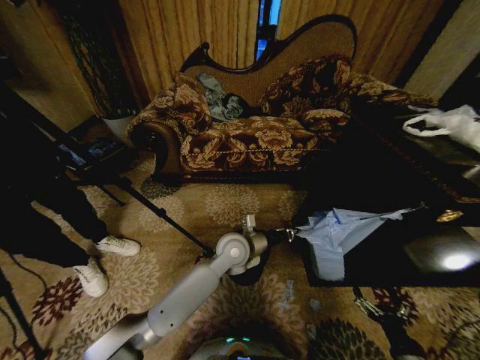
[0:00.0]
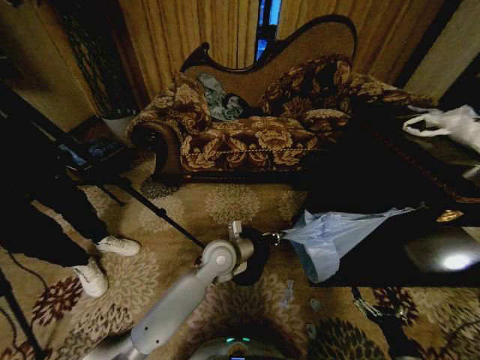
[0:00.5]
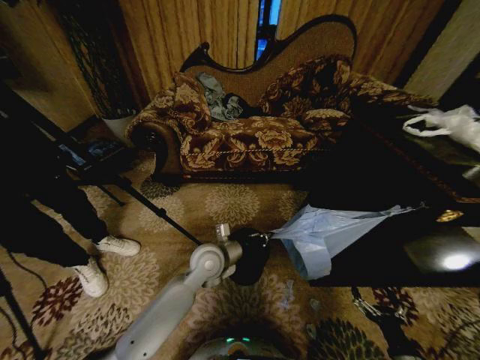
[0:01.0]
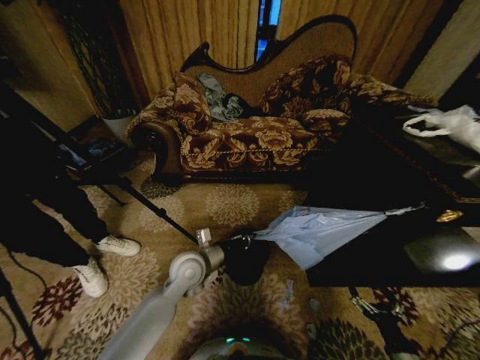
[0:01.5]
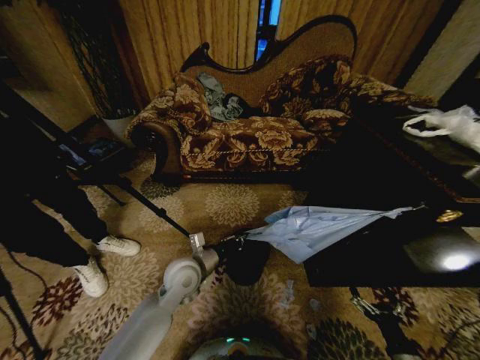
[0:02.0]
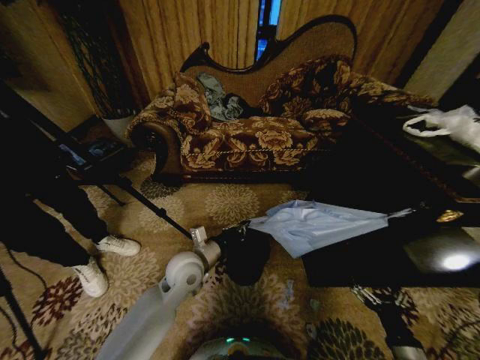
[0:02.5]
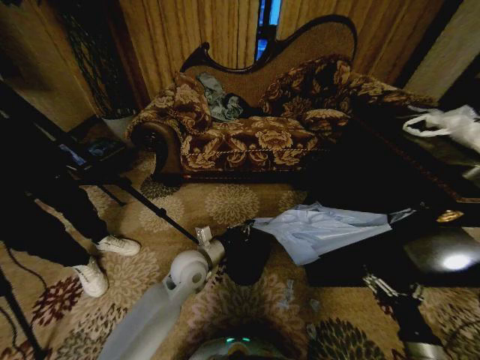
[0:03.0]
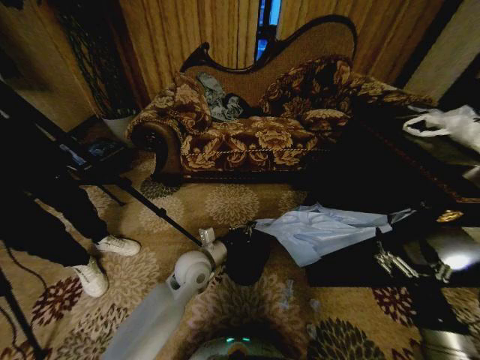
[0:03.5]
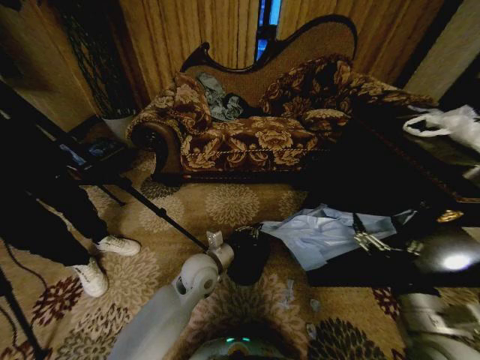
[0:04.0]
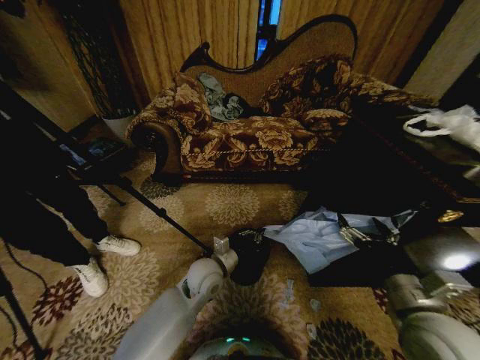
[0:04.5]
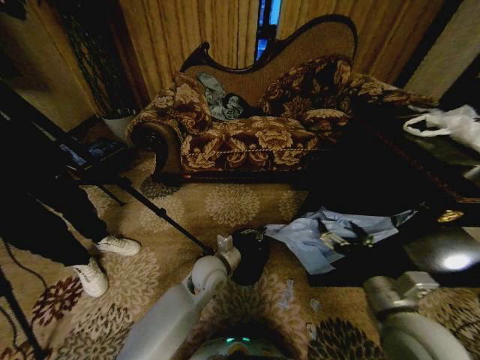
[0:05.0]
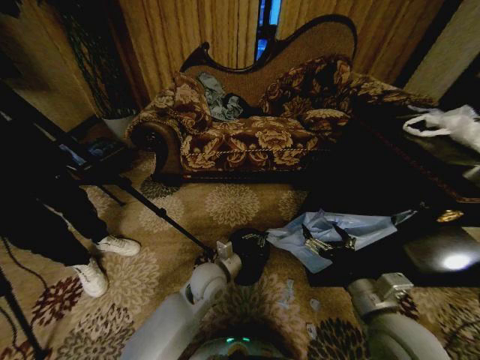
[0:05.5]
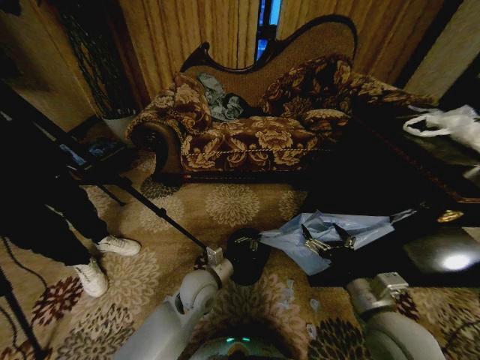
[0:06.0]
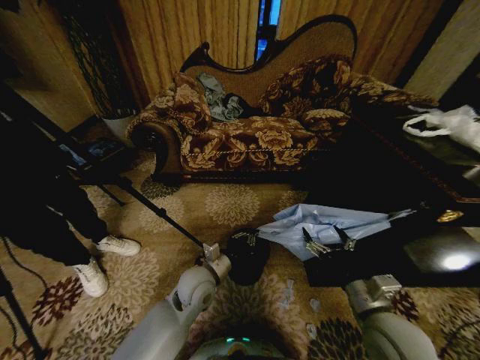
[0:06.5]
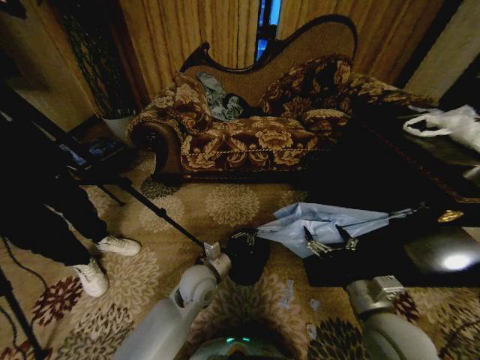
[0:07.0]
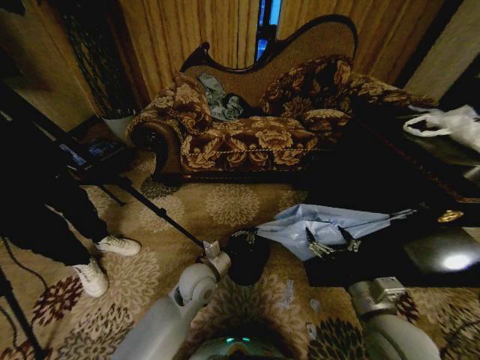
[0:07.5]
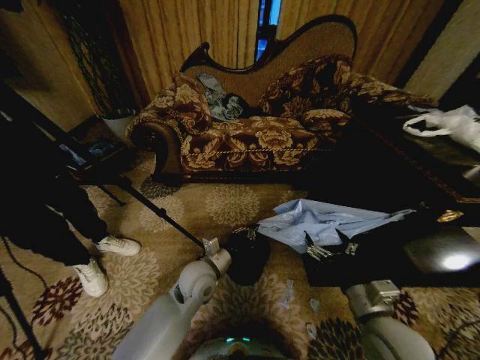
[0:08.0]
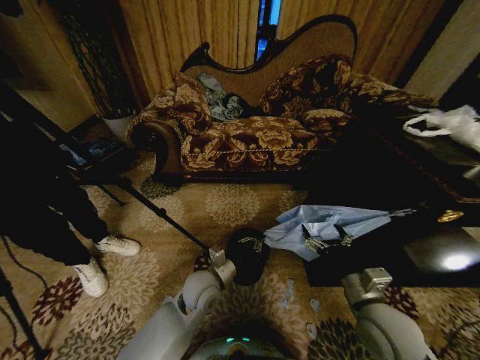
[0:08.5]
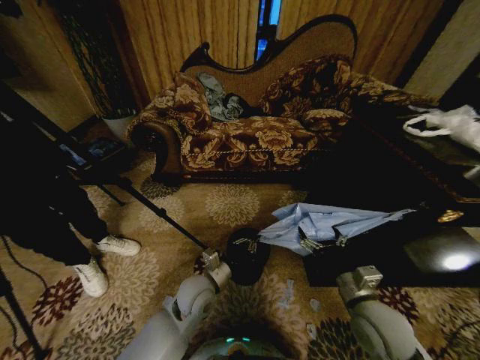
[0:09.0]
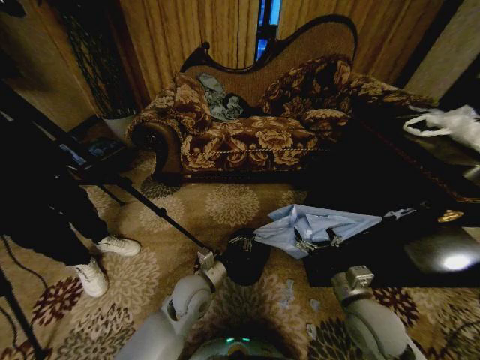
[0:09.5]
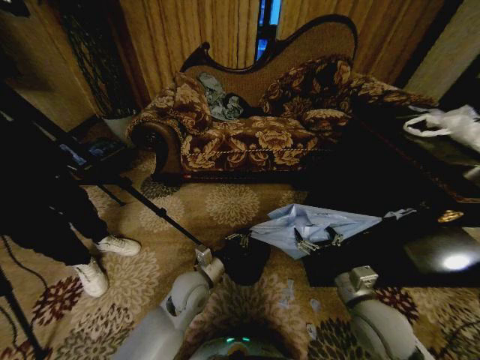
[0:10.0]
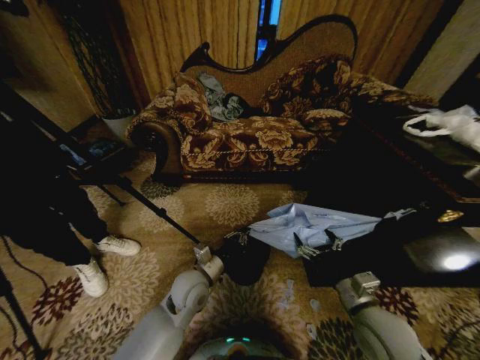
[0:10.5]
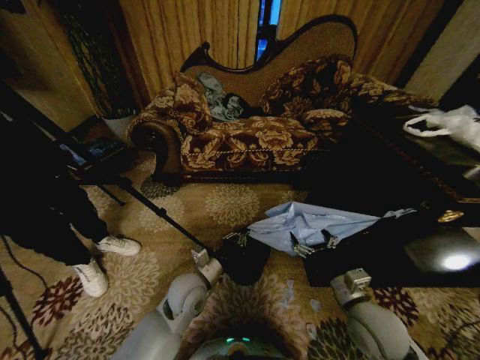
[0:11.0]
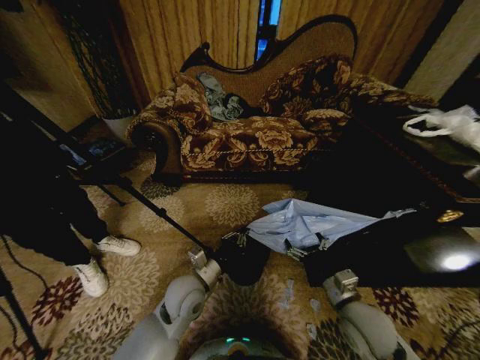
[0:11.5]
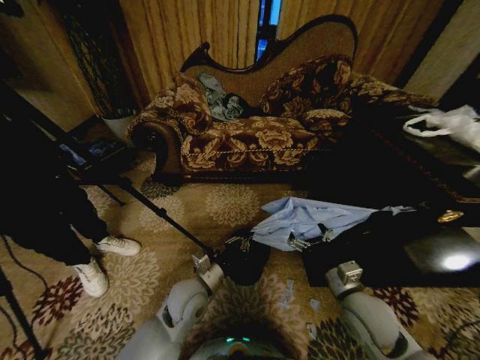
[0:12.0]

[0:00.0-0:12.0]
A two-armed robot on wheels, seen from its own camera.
Task of the whole recording: Place a garbage bag over the trash bin.
0:00.0 to 0:02.0: The left gripper is displaced to the left and backward by approximately 15 cm.
0:02.0 to 0:04.0: The right gripper goes roughly 20 cm upward and to the left.
0:04.0 to 0:06.0: The right gripper changes place by some 5 cm.
0:06.0 to 0:10.0: The grippers make only small movements.
0:10.0 to 0:12.0: The grippers move only a little.

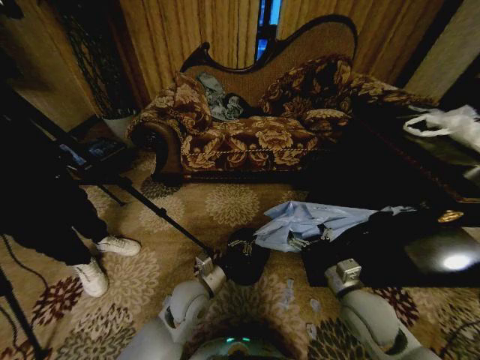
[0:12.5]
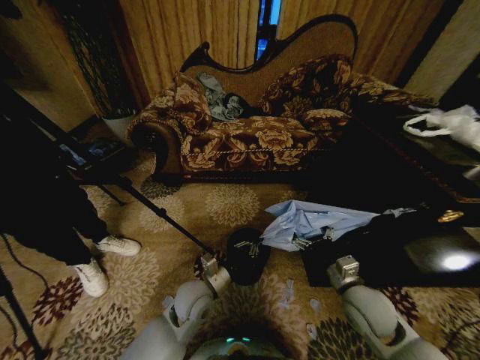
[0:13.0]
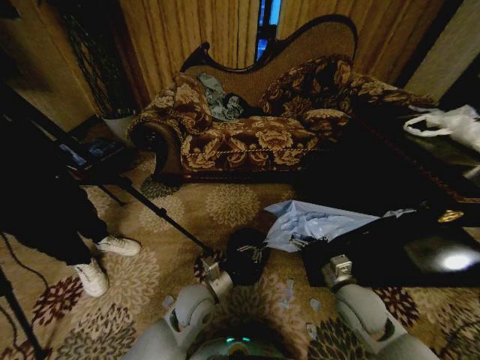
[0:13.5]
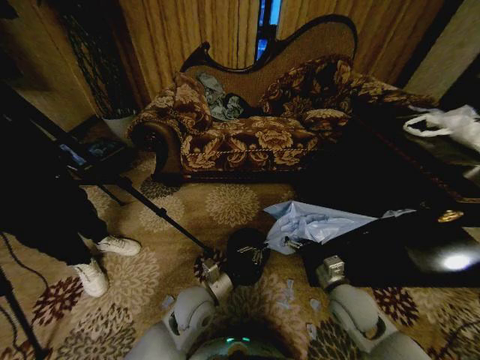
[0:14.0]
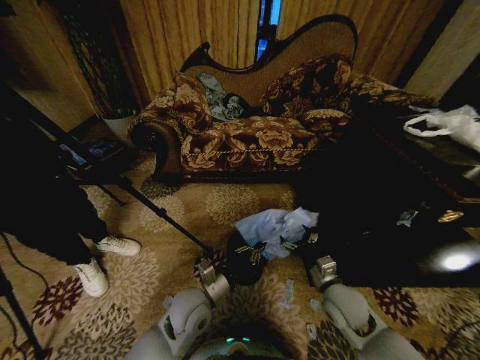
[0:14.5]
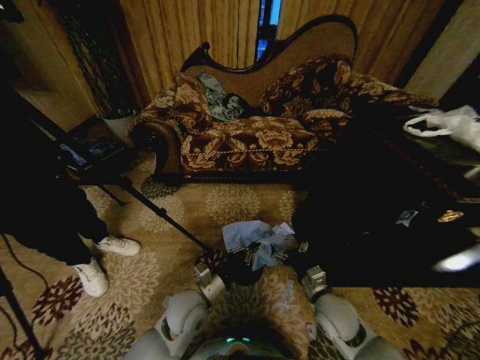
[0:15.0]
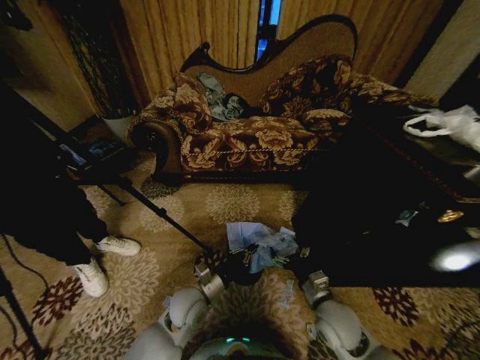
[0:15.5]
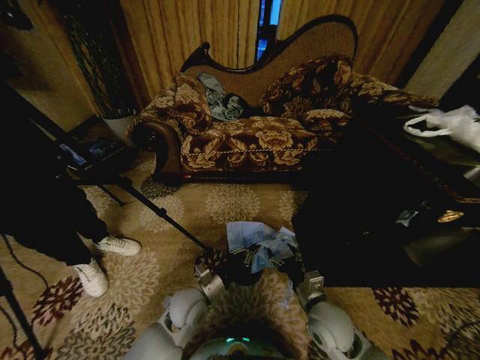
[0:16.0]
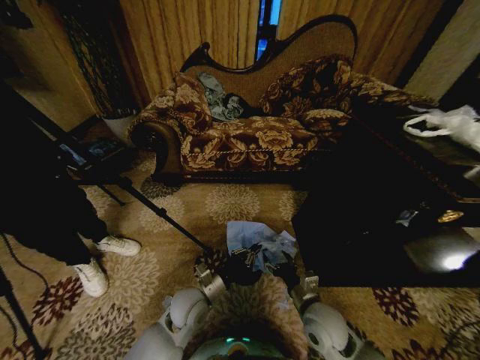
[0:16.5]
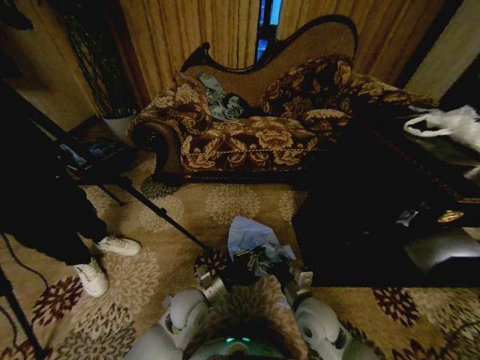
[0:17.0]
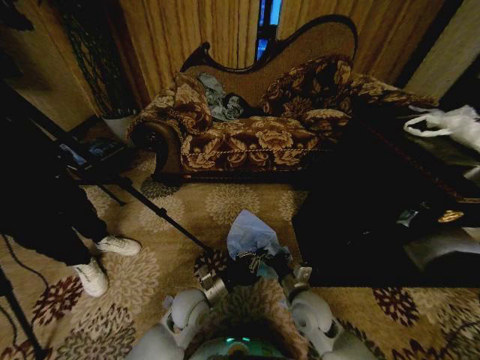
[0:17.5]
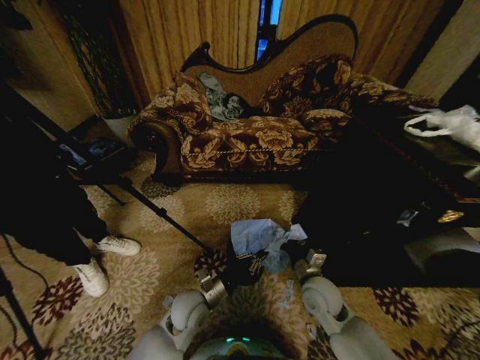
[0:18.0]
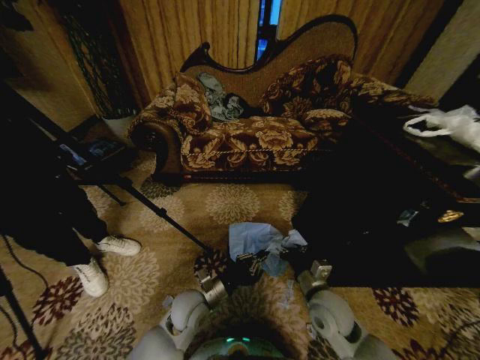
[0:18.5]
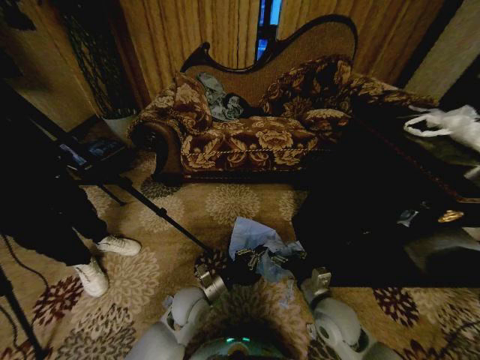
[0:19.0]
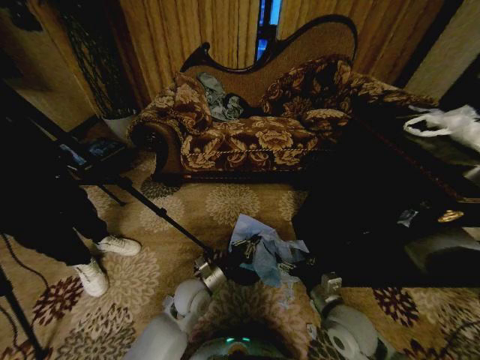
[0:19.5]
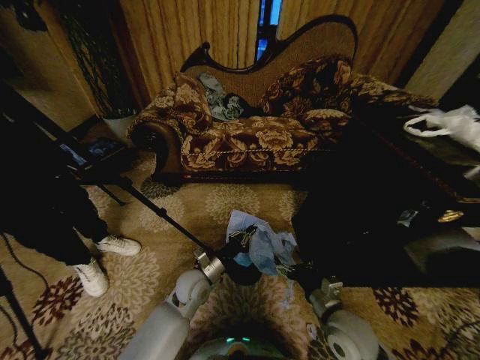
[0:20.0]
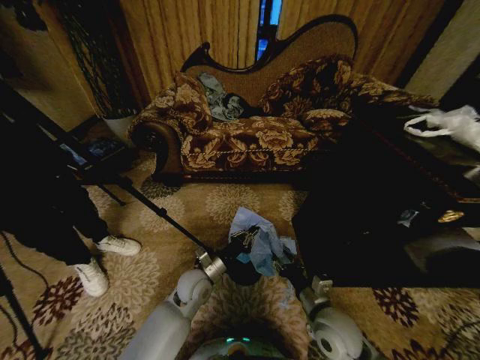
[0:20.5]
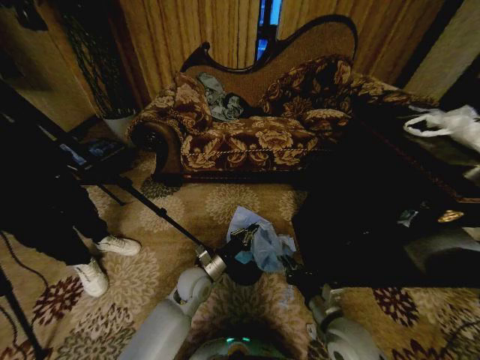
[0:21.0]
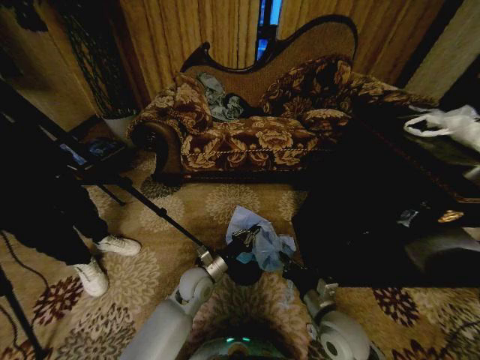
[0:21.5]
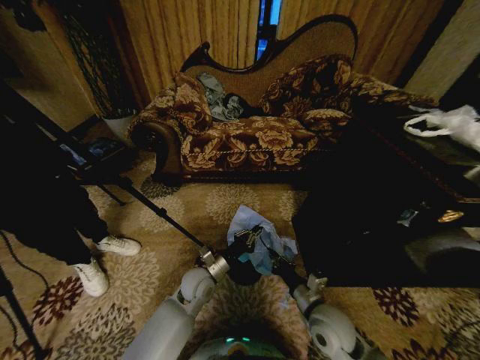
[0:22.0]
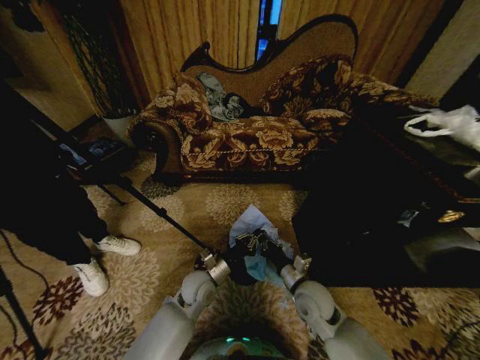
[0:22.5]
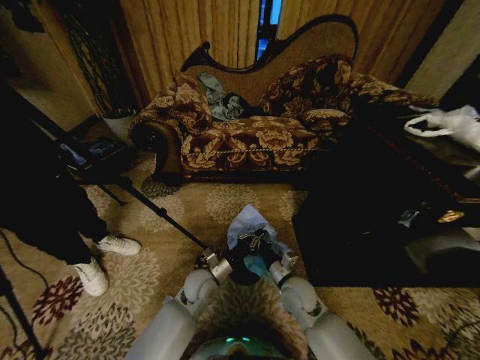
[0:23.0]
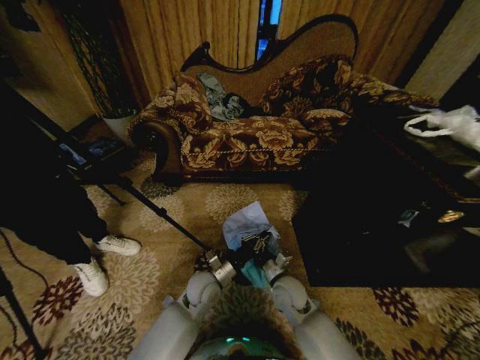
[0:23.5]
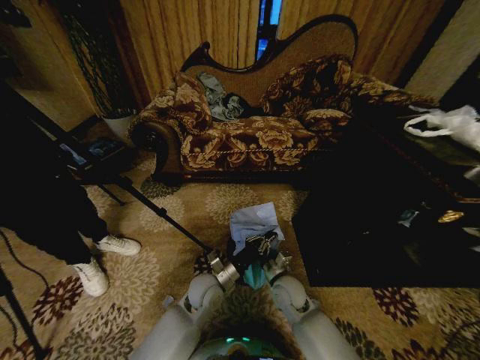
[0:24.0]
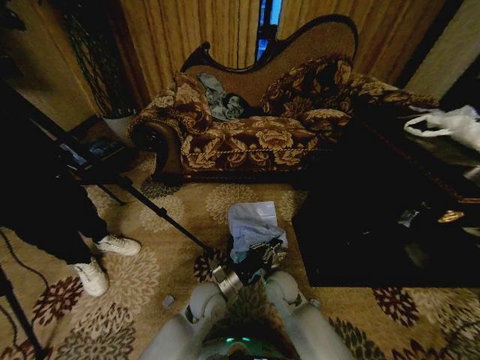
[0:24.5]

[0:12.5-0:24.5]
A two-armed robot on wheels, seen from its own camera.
Task of the whole recording: Place a garbage bag over the trash bin.
0:12.5 to 0:14.5: The right gripper ends up approximately 5 cm from where it was.
0:14.5 to 0:16.5: The right gripper travels to the left by about 5 cm.
0:18.5 to 0:20.5: The right gripper closes. The left gripper moves forward, roughly 5 cm.
0:20.5 to 0:22.5: The right gripper goes about 5 cm forward, and closes.
0:22.5 to 0:24.5: The right gripper heads to the left, covering about 5 cm; the left gripper moves some 5 cm.

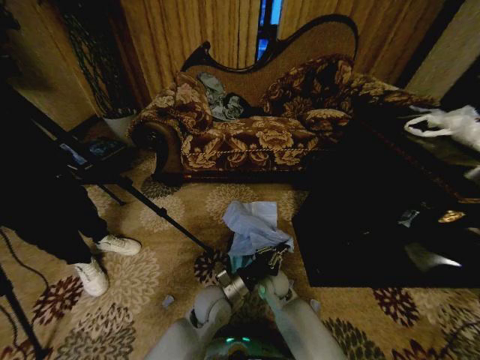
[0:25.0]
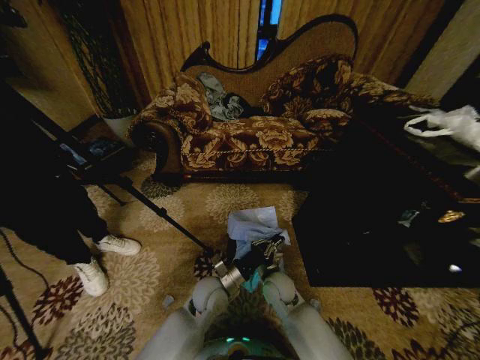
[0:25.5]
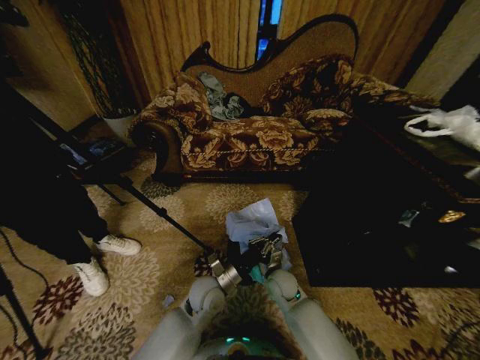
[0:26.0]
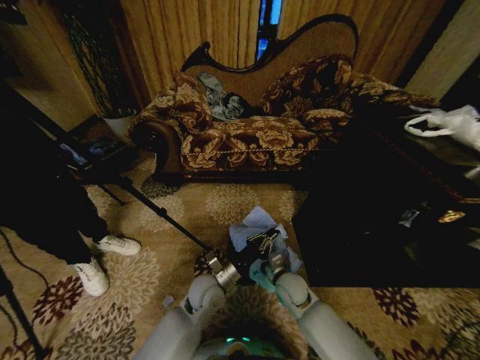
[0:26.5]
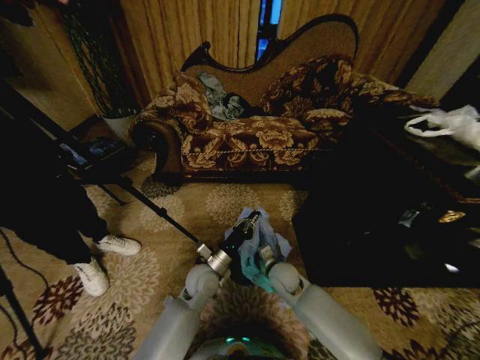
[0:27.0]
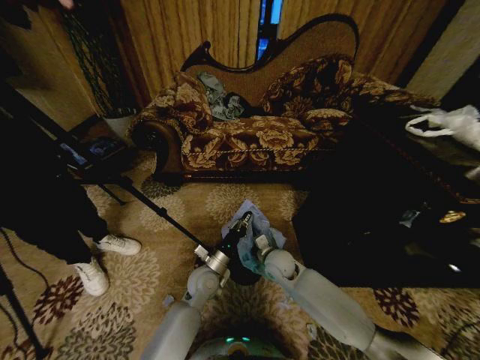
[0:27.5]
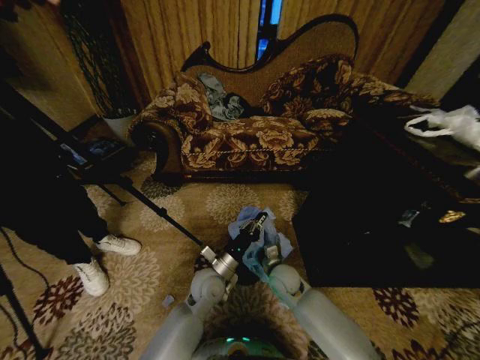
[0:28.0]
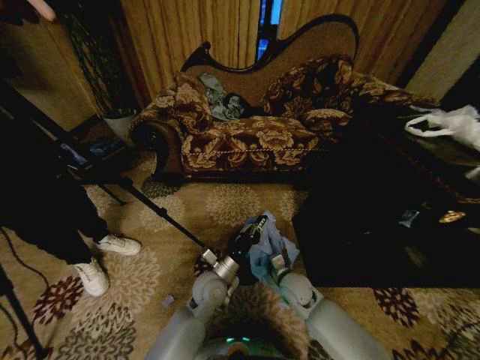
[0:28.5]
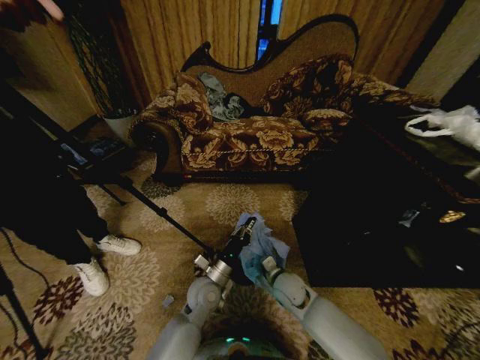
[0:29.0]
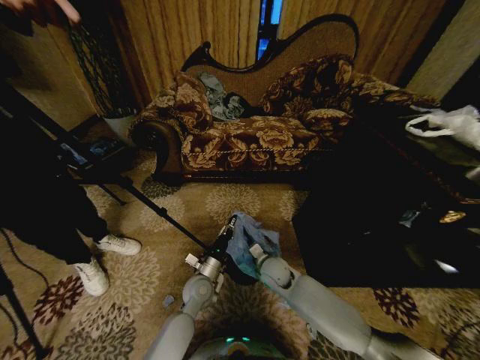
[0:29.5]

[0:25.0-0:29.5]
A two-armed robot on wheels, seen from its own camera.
Task of the whole recording: Place a garbage bag over the trash bin.
0:25.0 to 0:27.0: The left gripper moves forward, approximately 5 cm.
0:27.0 to 0:29.5: The left gripper changes place by some 5 cm.
